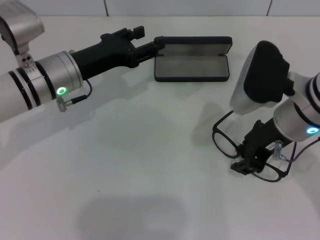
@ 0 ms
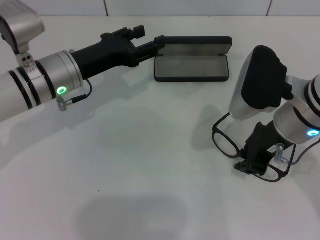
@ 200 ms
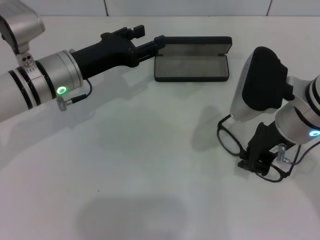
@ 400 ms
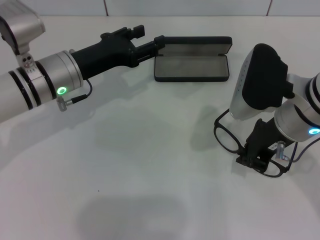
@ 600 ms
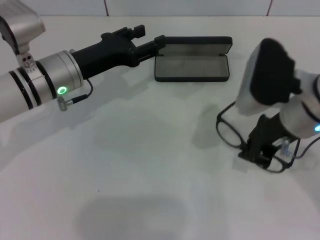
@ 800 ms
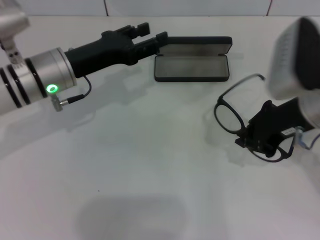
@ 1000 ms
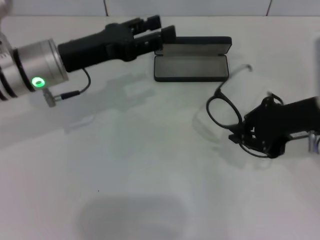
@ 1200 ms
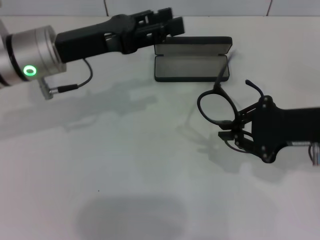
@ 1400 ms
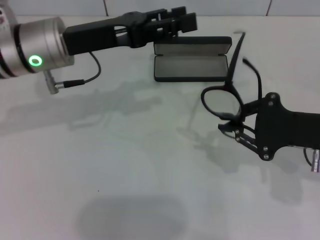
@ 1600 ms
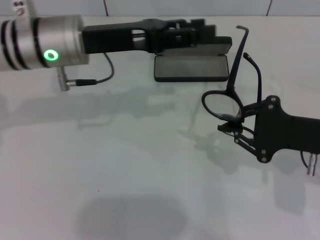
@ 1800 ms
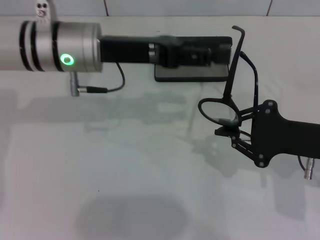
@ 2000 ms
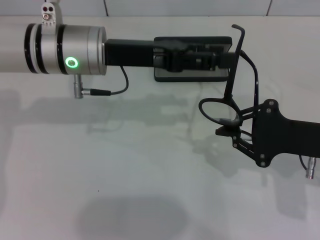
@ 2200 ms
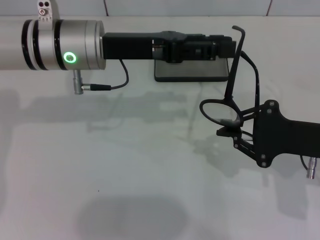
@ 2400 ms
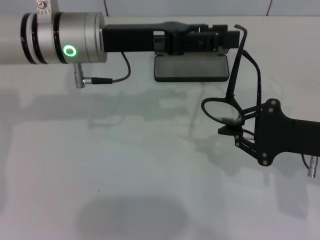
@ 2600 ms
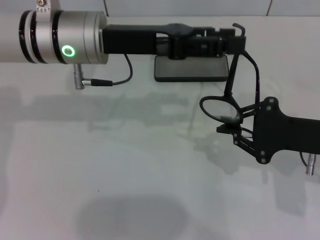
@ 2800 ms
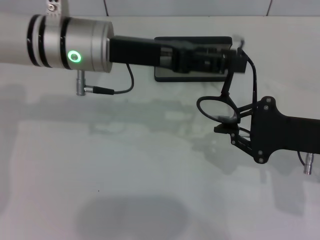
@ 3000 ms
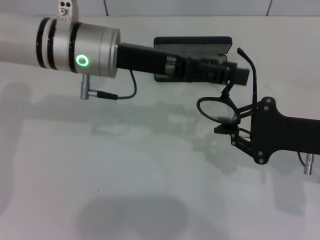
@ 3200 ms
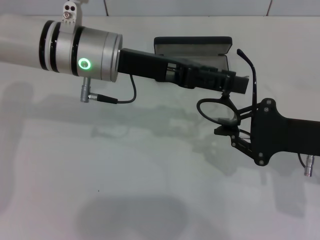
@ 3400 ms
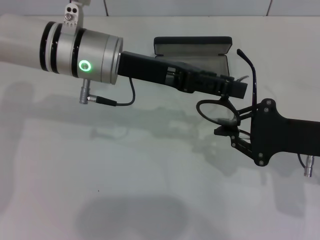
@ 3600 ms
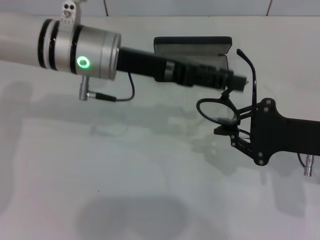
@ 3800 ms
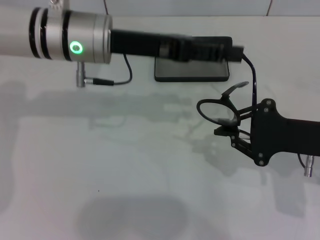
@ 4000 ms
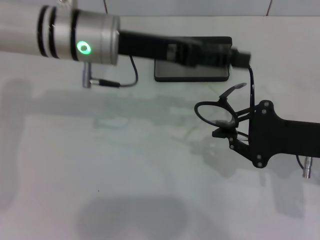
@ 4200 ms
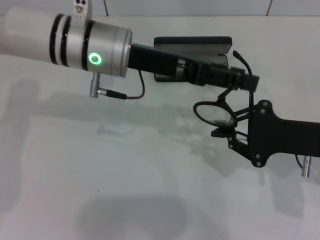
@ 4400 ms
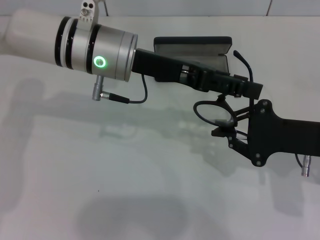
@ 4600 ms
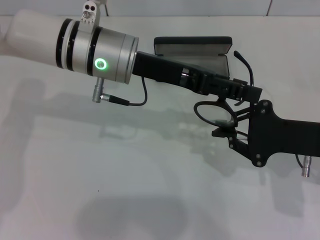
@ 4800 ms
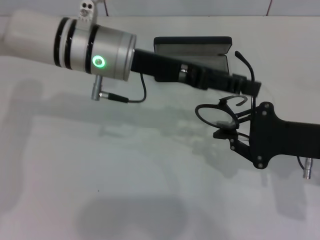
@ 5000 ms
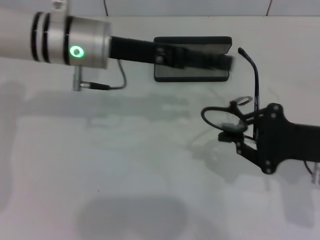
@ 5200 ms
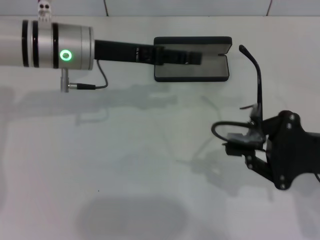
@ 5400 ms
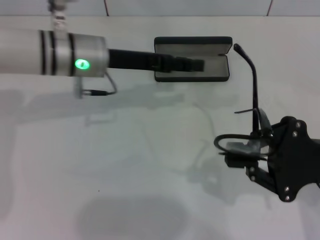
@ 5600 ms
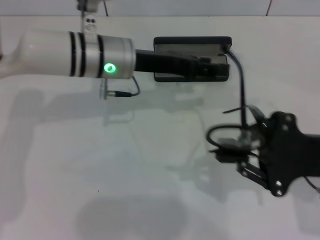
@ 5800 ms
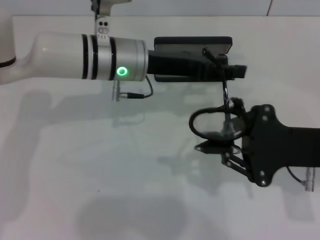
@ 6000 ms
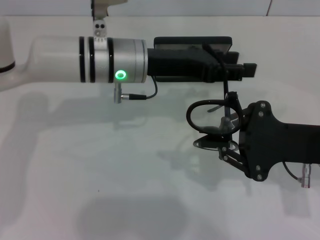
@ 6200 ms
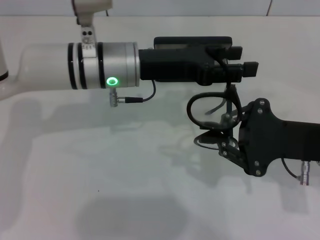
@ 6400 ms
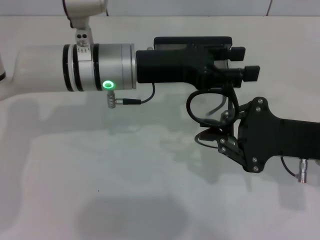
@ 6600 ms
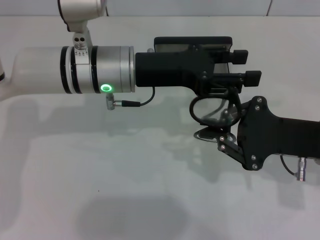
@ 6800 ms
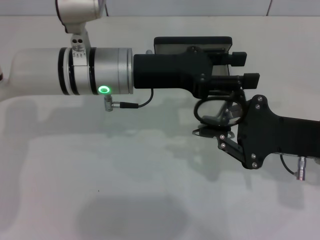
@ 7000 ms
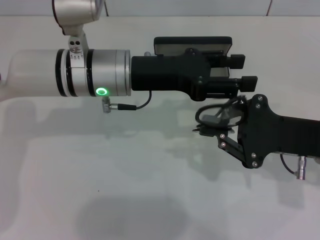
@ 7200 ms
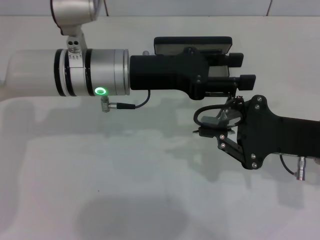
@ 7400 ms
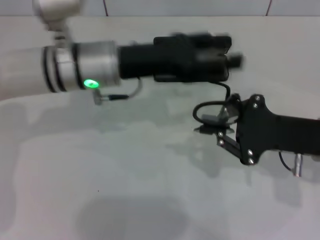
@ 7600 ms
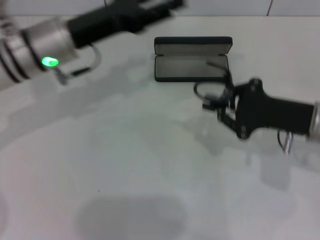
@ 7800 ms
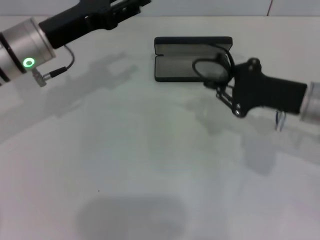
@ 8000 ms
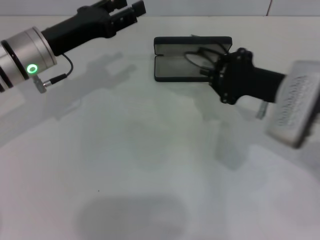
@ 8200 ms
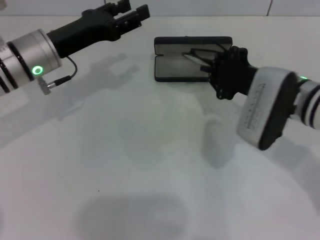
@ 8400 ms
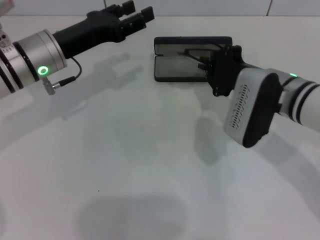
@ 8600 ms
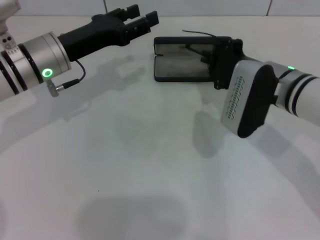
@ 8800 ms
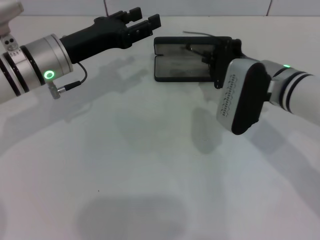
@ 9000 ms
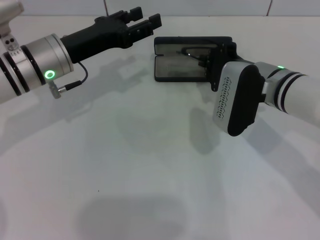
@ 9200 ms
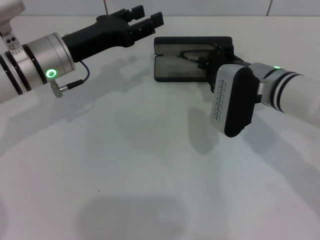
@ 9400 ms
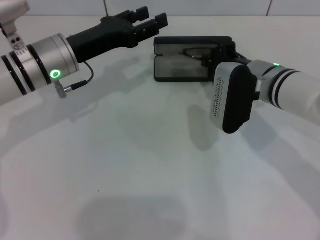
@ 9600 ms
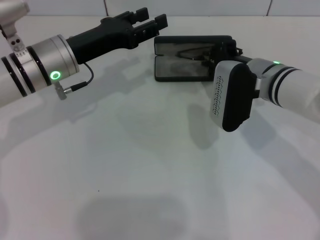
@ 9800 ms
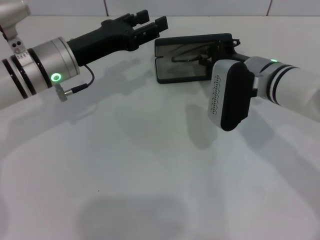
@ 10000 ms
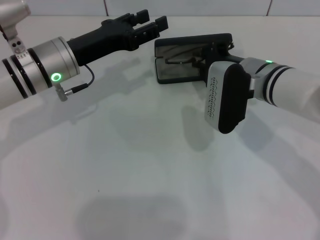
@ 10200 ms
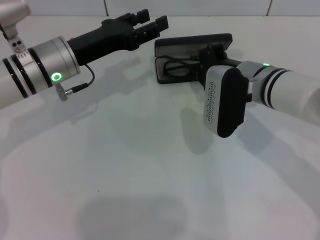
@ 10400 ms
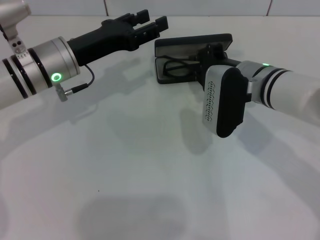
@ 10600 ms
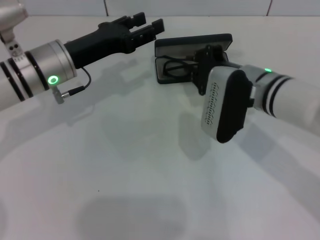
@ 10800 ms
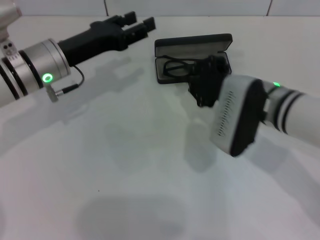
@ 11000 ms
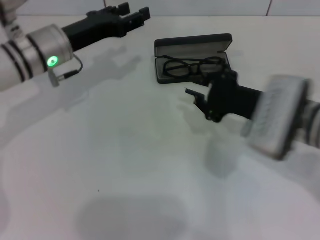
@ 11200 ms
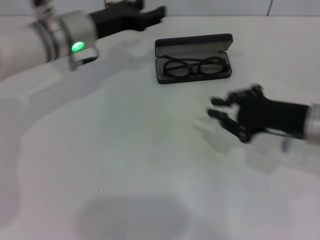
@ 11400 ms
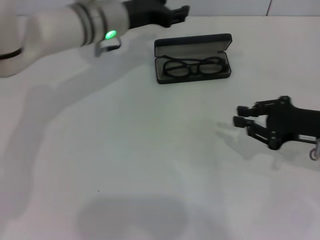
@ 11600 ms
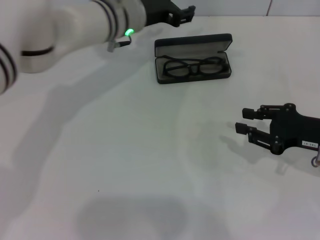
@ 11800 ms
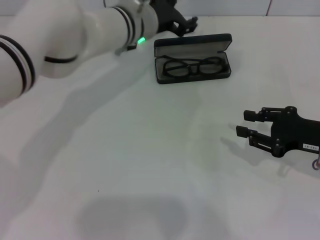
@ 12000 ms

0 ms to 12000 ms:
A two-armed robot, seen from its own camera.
Step, 600 ms to 7200 ms: Fold the frame with your left hand.
Step, 7600 ms to 11000 ms: Put the glasses into the case with your right hand.
0 ms to 1600 ms: The right gripper goes about 10 cm to the right, and closes; the left gripper moves upward, about 5 cm.
1600 ms to 3000 ms: The left gripper heads to the right, covering roughly 5 cm.
3000 ms to 4400 ms: The grippers make only small movements.
7600 ms to 9000 ms: The left gripper is displaced to the left by about 5 cm. The right gripper goes approximately 10 cm to the left and forward.
9000 ms to 10400 ms: There are only small adjustments of the grippers.
10400 ms to 12000 ms: The right gripper is displaced to the right and backward by about 20 cm. The left gripper heads to the right and forward, covering about 15 cm.

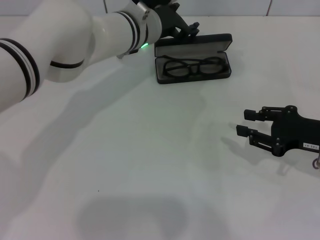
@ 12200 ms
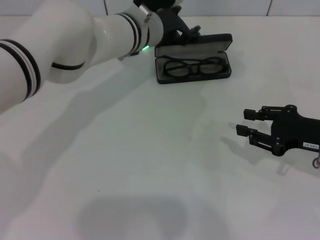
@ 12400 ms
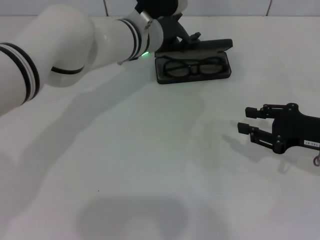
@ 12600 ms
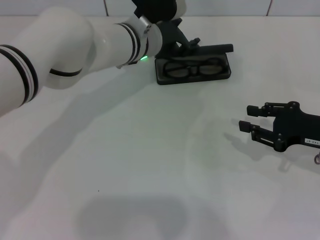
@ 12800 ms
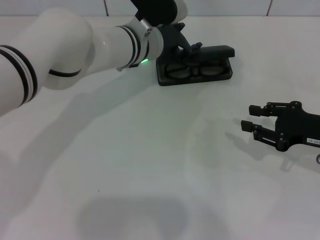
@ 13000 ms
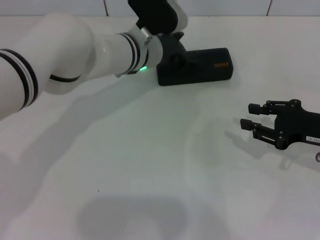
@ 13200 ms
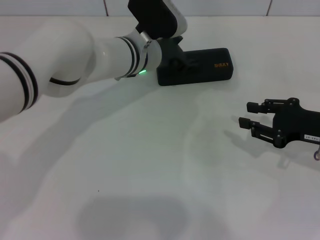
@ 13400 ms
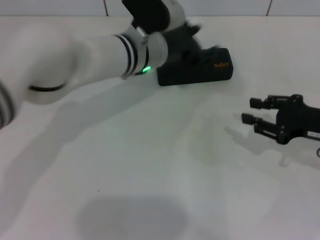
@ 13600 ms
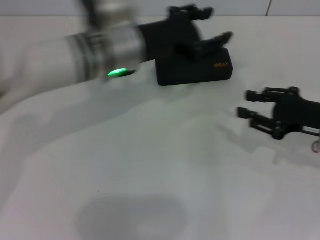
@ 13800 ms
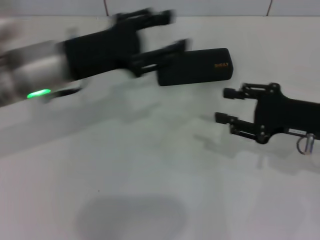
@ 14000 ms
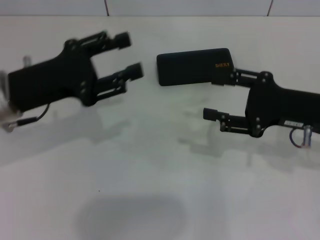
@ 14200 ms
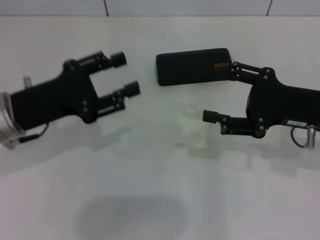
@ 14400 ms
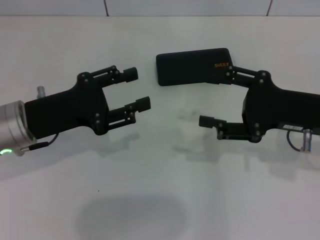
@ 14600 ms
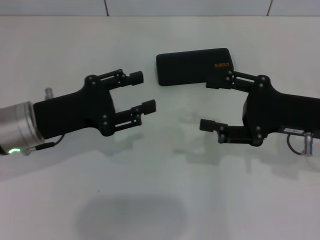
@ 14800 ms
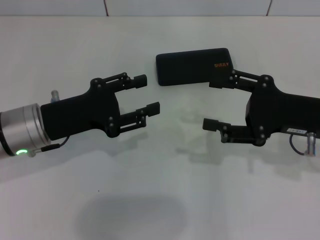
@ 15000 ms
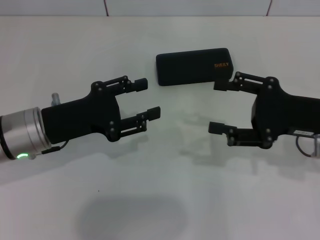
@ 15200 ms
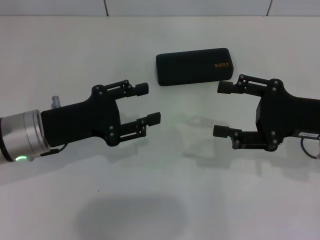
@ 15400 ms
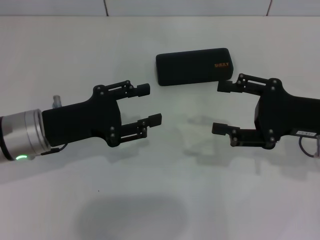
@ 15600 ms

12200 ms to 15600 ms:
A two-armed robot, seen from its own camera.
Step, 12200 ms to 13400 ms: Close the glasses case with your left hand.
12200 ms to 13800 ms: The left gripper goes roughly 10 cm backward.
13800 ms to 15600 ms: The left gripper travels to the left, backward and downward by some 15 cm, while the right gripper opens up.

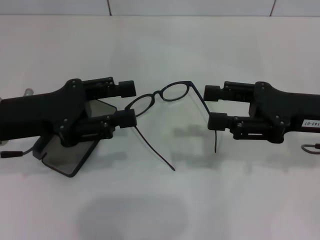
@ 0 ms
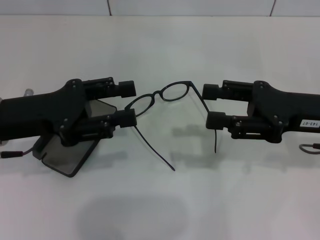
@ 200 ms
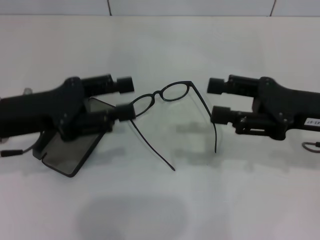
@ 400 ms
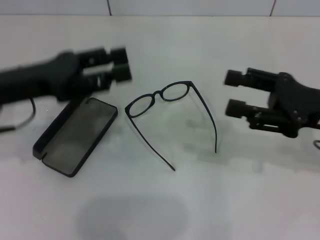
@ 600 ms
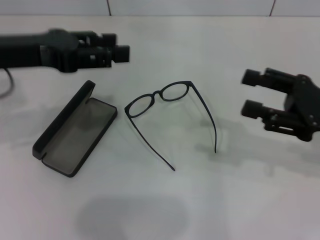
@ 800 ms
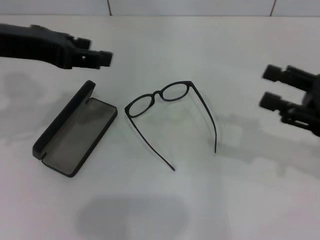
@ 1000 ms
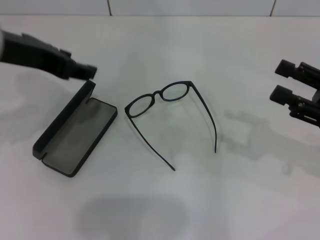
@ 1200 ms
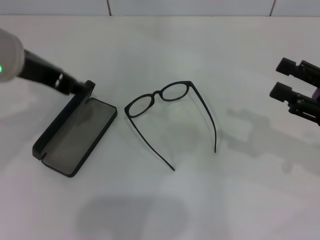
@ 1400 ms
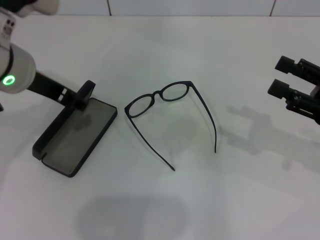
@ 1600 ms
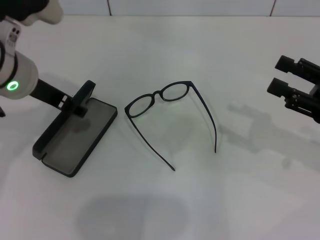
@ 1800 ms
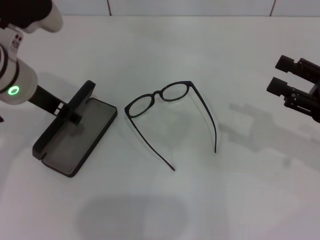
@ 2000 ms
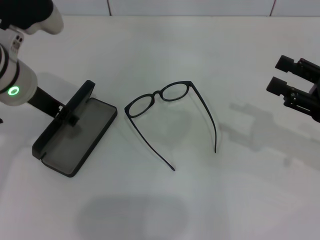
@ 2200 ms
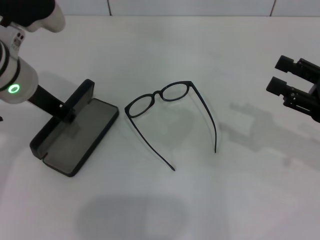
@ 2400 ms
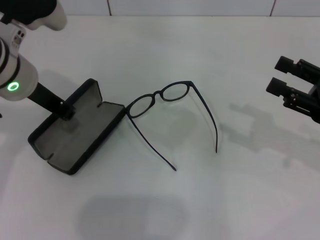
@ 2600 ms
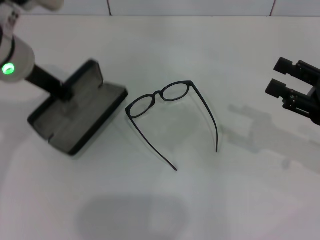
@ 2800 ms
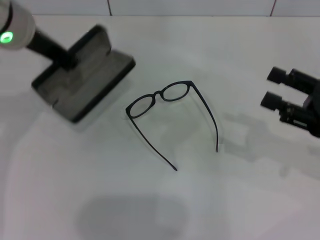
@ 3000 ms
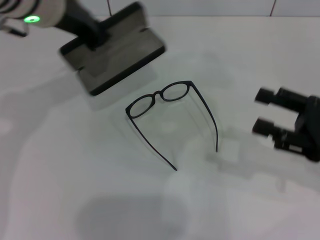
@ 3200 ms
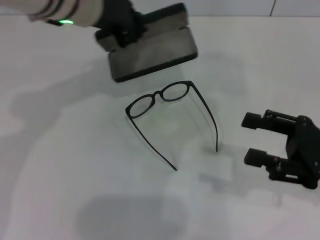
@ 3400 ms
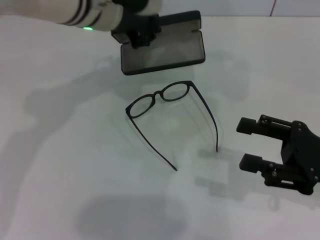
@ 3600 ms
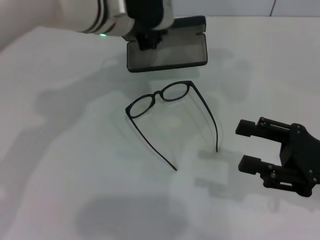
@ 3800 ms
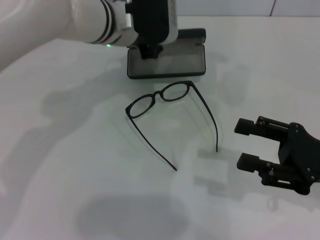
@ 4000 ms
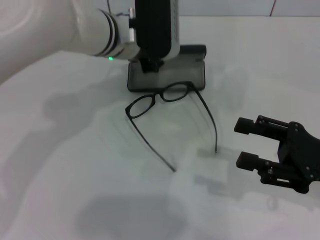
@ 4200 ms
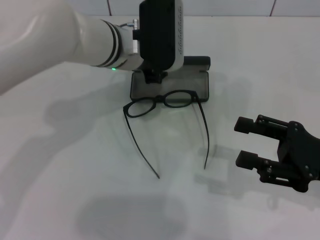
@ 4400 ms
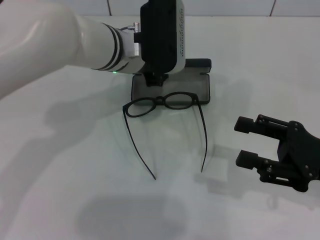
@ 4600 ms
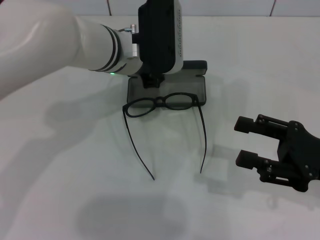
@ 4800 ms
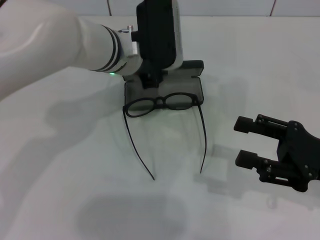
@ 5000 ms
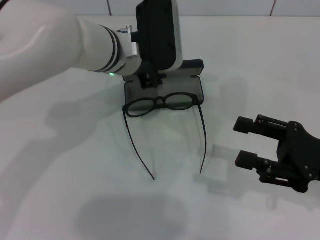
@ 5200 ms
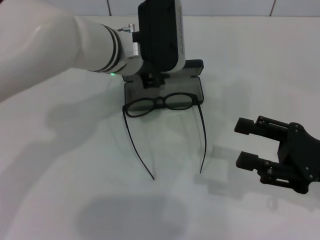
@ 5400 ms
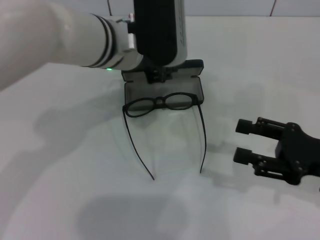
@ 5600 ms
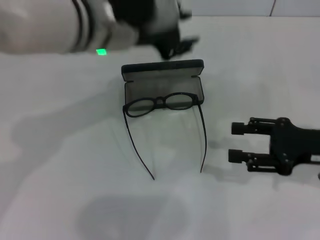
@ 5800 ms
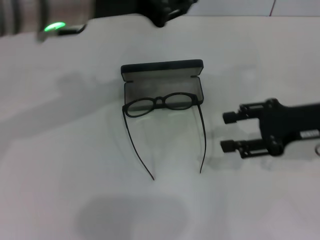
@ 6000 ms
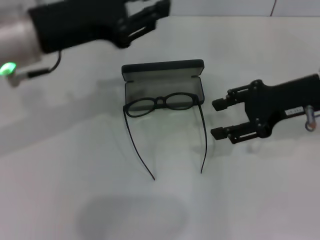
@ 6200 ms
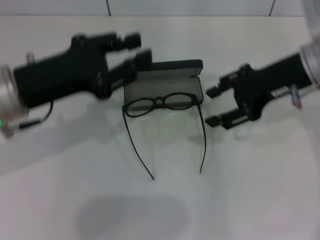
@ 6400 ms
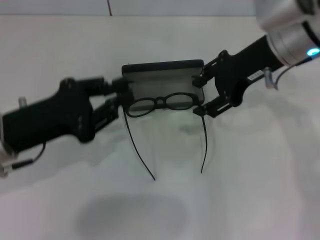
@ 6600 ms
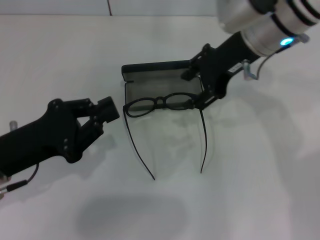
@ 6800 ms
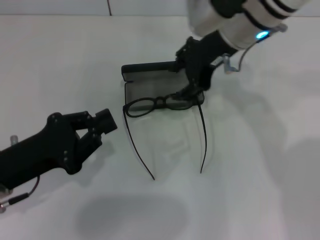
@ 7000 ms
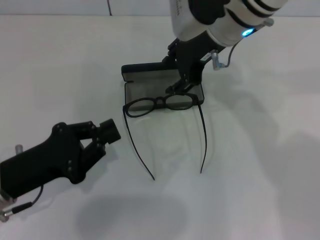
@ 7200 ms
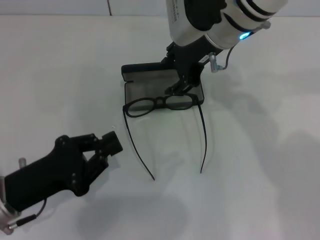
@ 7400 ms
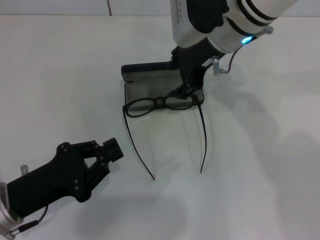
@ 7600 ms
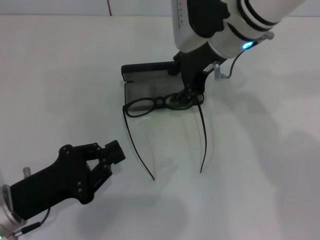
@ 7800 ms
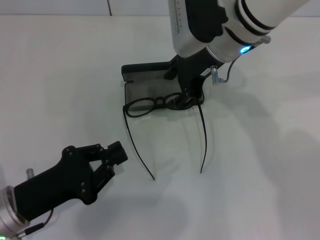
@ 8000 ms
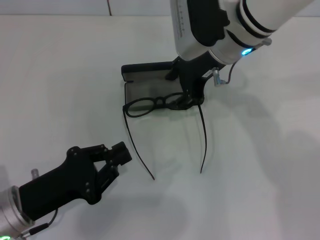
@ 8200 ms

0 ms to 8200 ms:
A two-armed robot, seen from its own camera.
Step, 0 ms to 2600 ms: Grab the glasses case with your left hand.
Step, 2800 ms to 5600 ms: Place the glasses case in the center of the table with your left hand.
0 ms to 1600 ms: The left gripper travels upward, to the right and forward by roughly 10 cm. Meanwhile the right gripper travels to the right by about 5 cm.
1600 ms to 3200 ms: The left gripper travels forward by about 5 cm, and closes.
3200 ms to 5000 ms: The left gripper is displaced downward and to the right by some 15 cm.
5000 ms to 6600 ms: The right gripper is displaced forward, upward and to the left by about 20 cm. Meanwhile the left gripper moves to the left and backward, about 20 cm.
6600 ms to 8200 ms: The left gripper travels downward and backward by about 10 cm. The right gripper heads to the left, covering about 10 cm.
